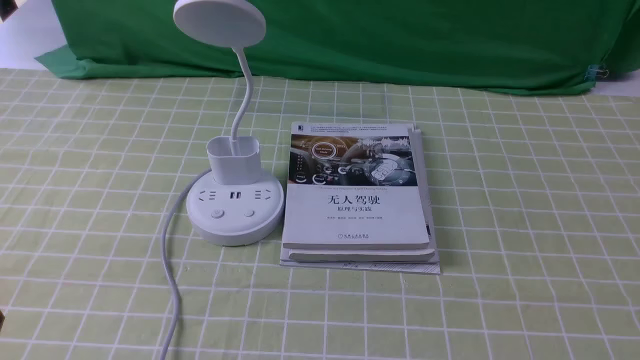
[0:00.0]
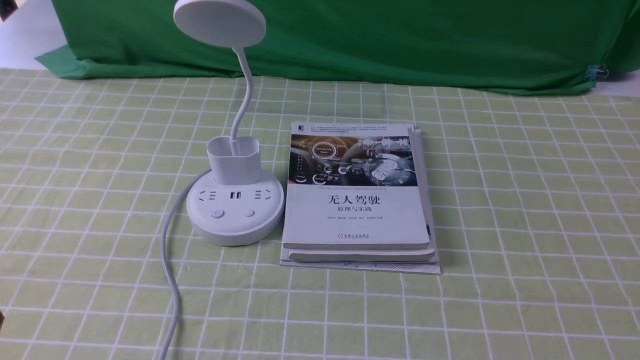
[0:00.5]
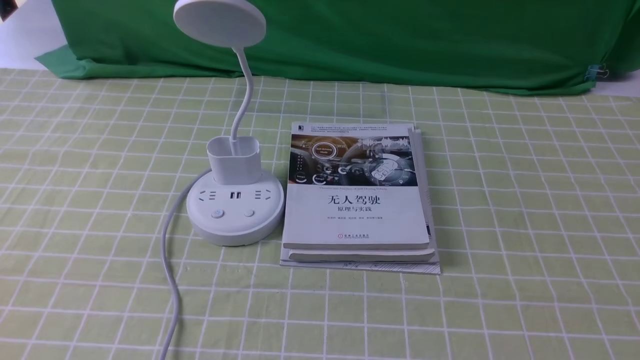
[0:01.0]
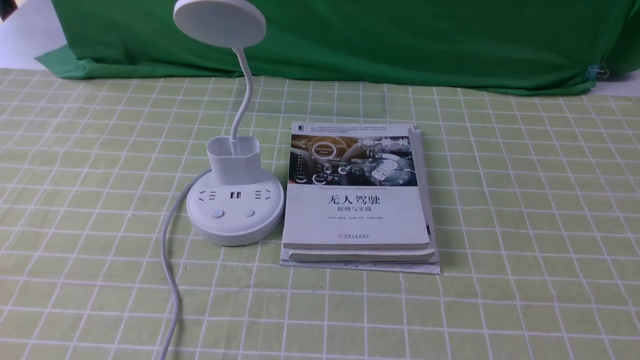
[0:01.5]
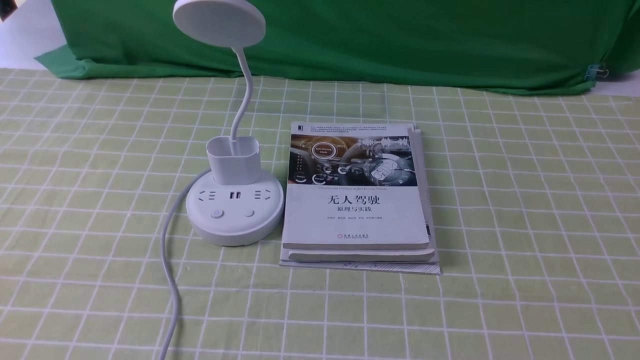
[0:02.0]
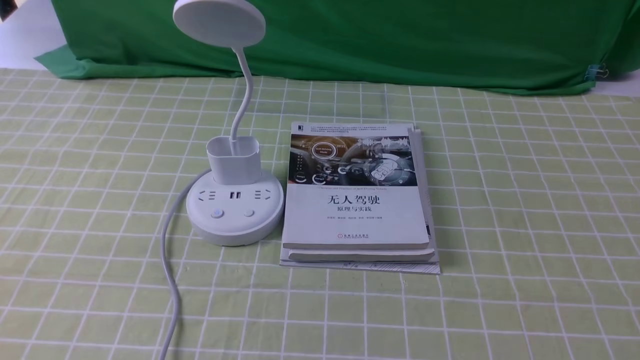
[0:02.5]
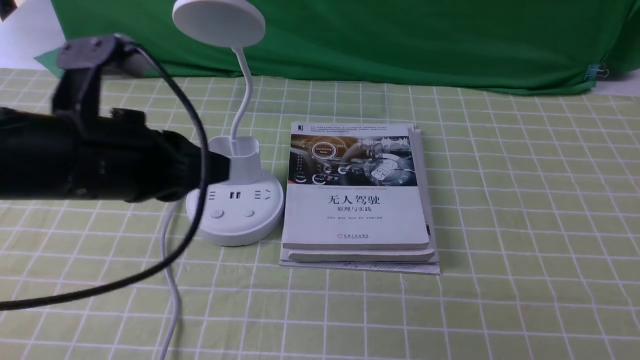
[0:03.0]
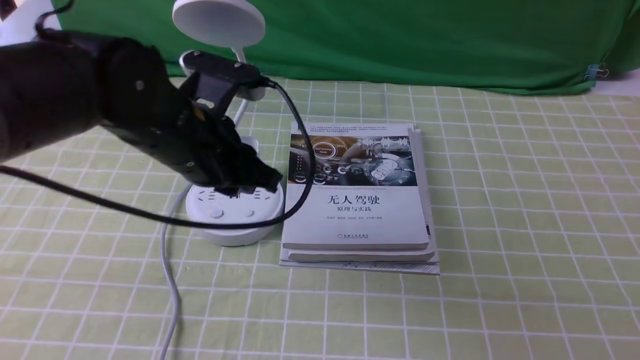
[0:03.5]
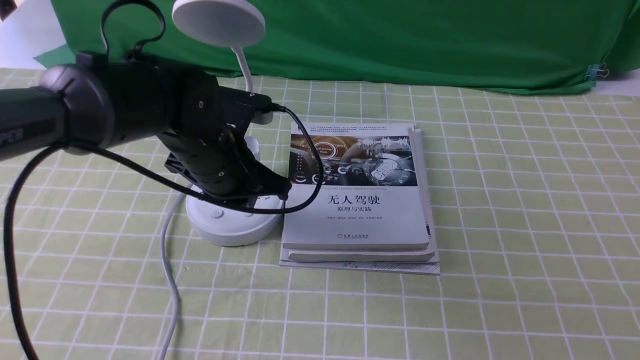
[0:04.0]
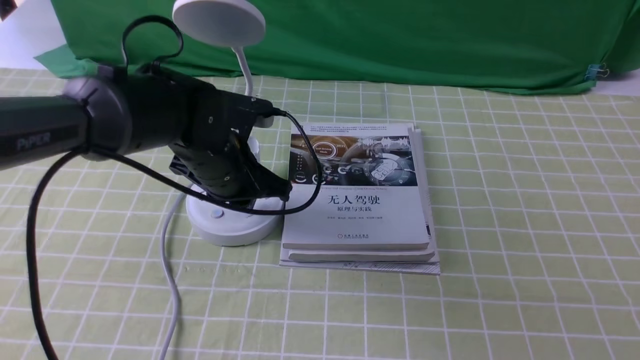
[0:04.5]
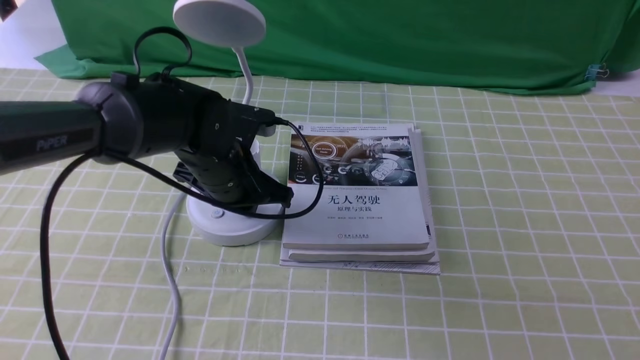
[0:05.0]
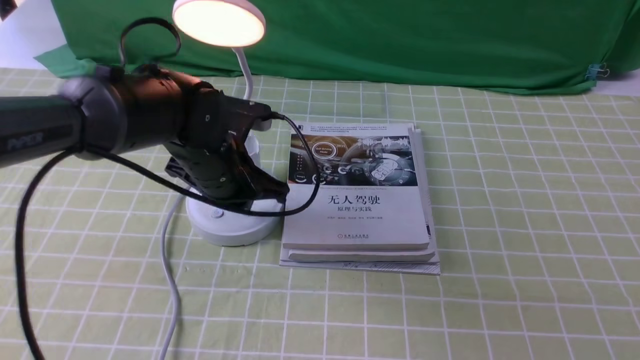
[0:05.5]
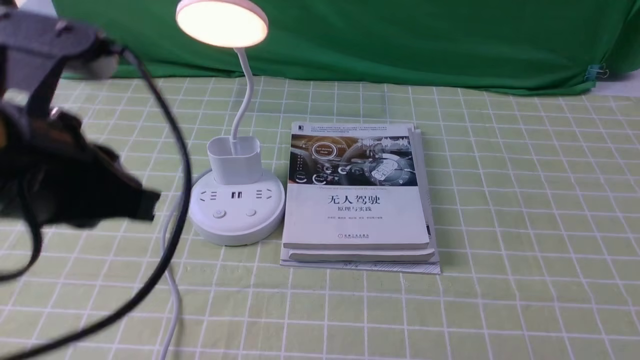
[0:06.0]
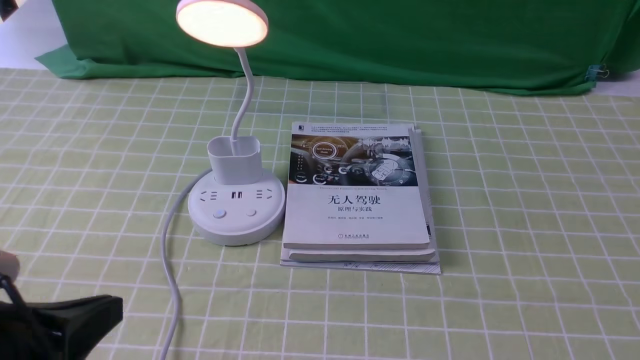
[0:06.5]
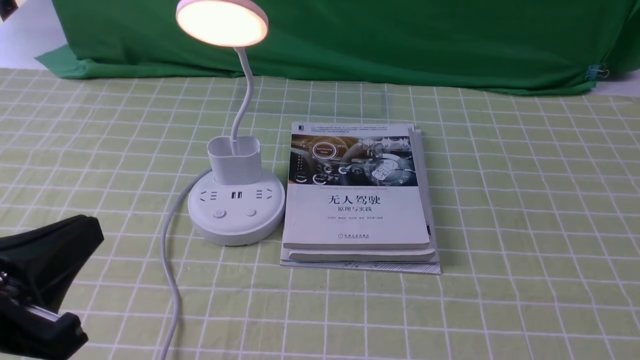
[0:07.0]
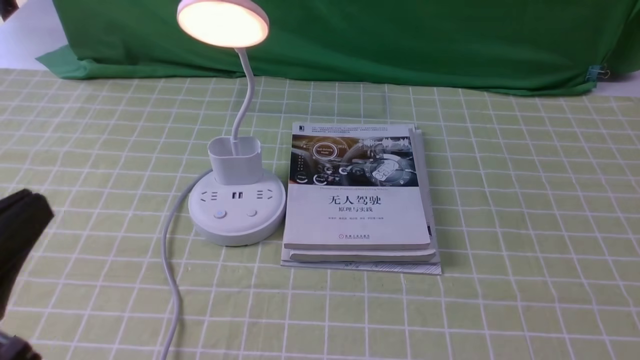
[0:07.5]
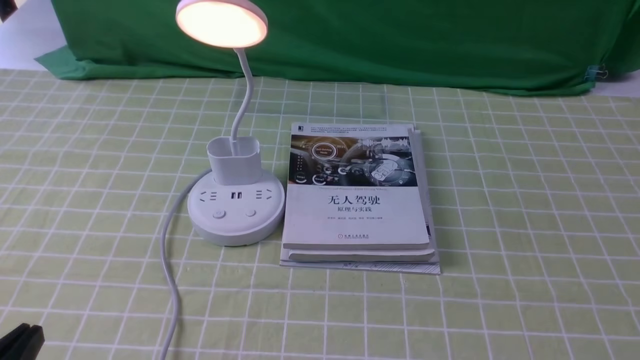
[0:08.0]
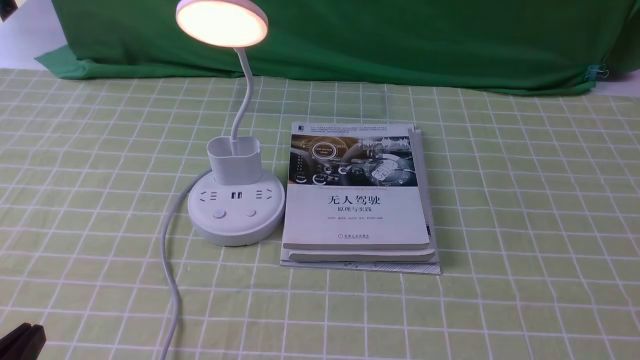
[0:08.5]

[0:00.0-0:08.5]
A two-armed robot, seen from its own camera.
Step, 0:00.0 to 0:05.5: use the left arm to press the button switch on the lamp holder.
0:02.0 to 0:04.0: The left gripper is displaced forward and to the right by about 35 cm, and opens, then closes once more.
0:04.0 to 0:06.5: The left gripper shifts about 25 cm backward.
0:06.5 to 0:08.5: The left gripper heads downward, covering approximately 10 cm.
